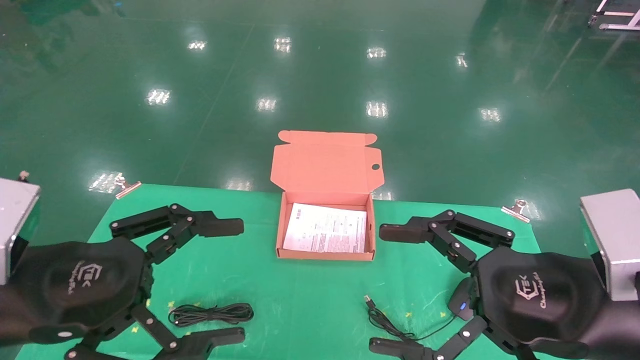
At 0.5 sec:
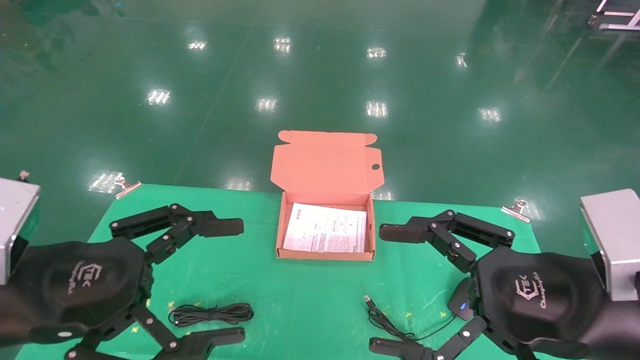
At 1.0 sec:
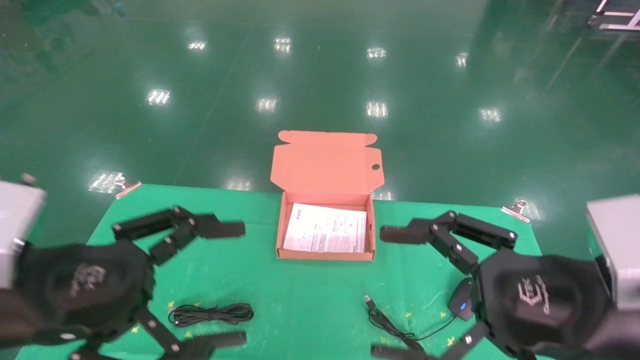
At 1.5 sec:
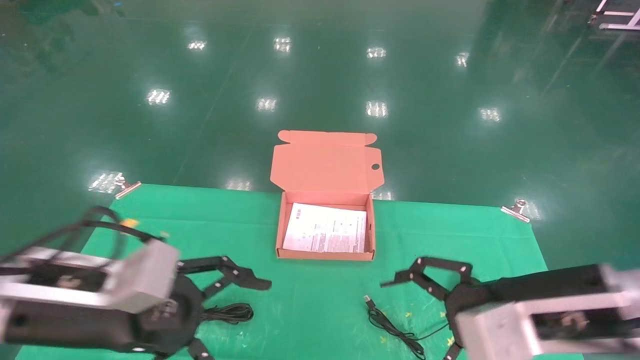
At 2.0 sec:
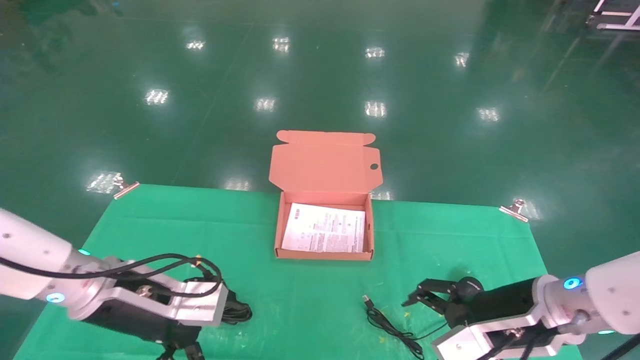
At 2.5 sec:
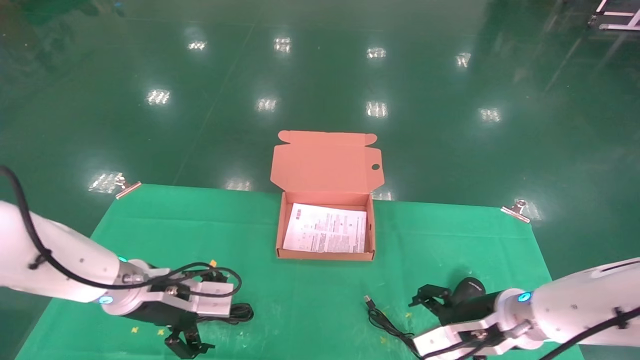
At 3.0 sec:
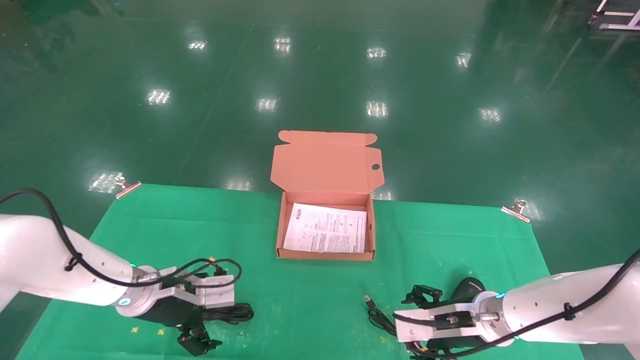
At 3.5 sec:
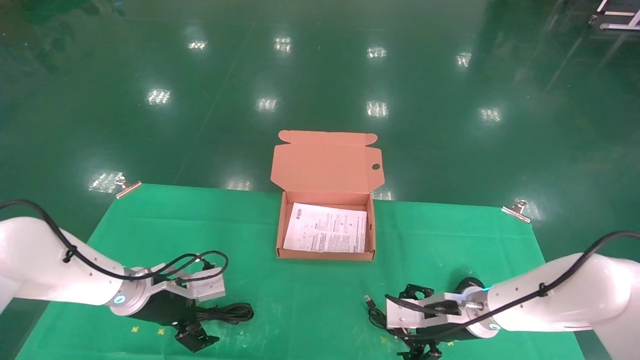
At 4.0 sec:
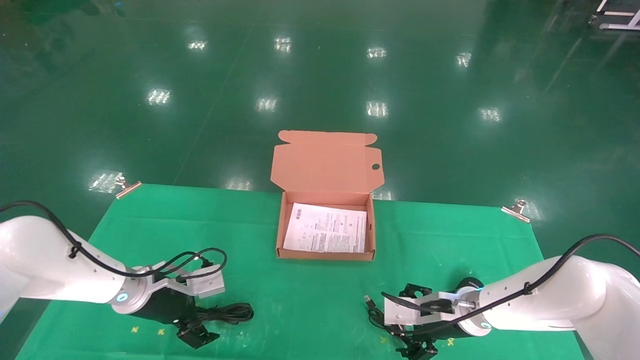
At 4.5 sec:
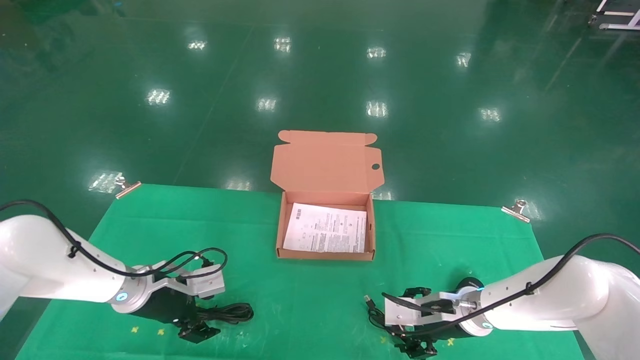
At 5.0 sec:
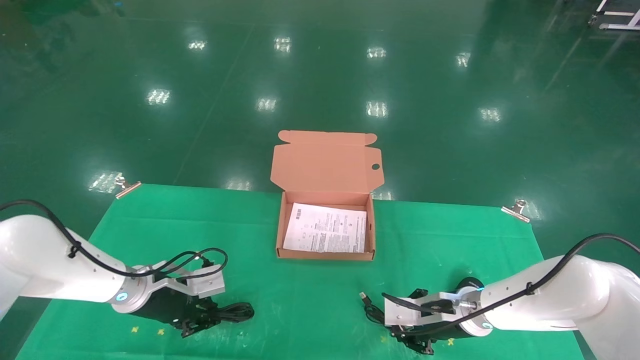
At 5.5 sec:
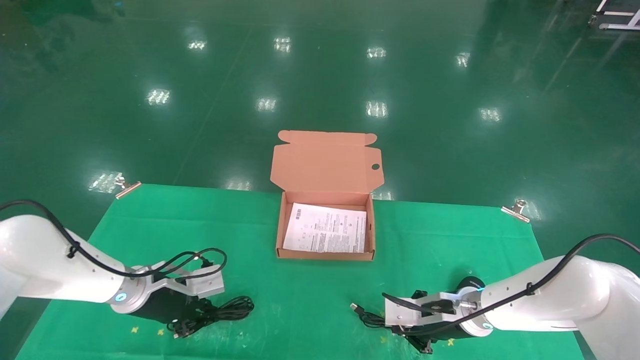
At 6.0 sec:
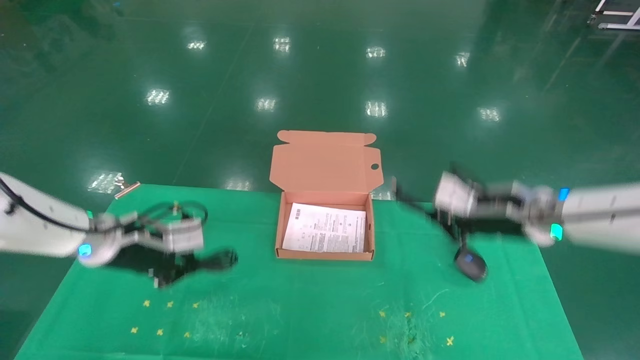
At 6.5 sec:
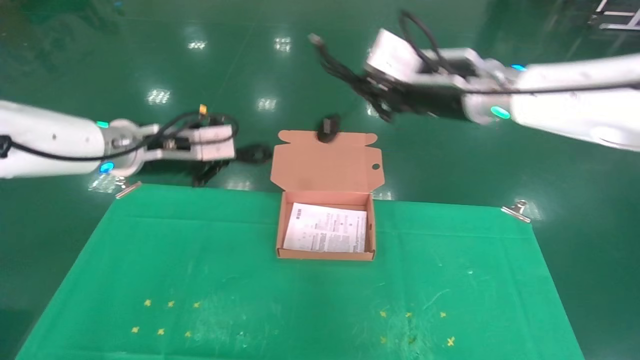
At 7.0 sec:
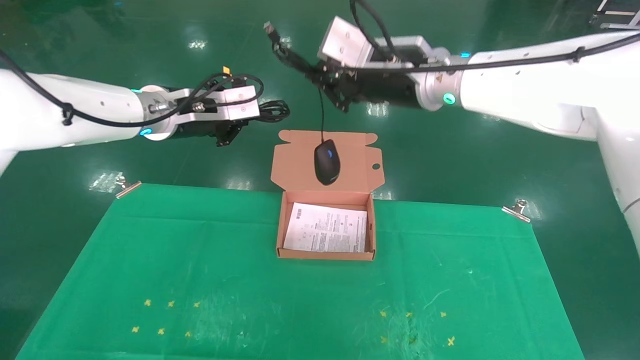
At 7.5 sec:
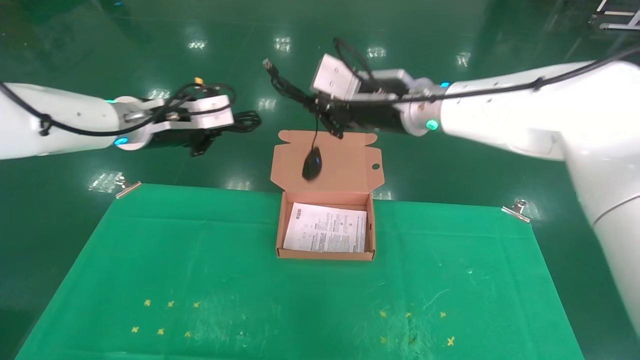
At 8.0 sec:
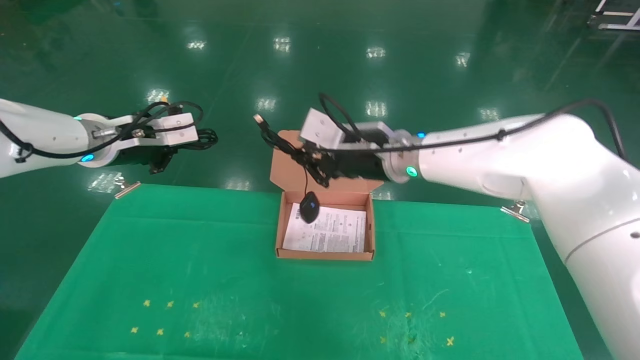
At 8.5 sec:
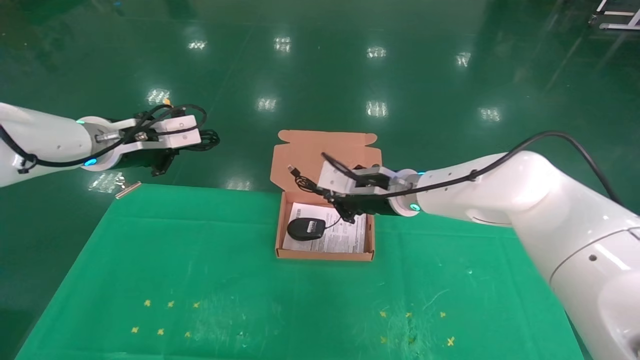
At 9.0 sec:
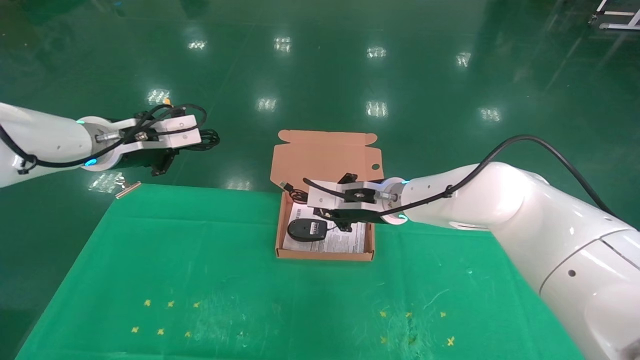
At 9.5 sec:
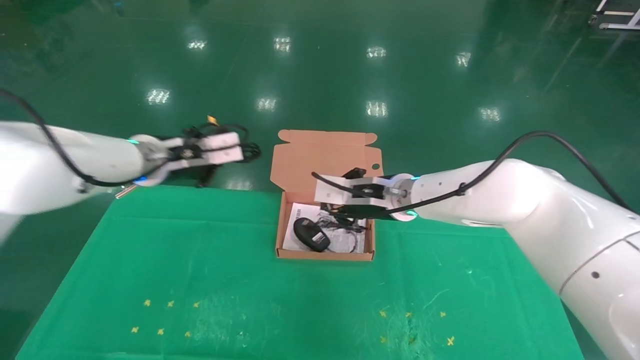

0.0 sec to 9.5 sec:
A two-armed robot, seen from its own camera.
Task of the whole recording: grasp data cable left put into box grasp mouse right put into box.
Step, 1.0 sec to 5.5 sec: Grab and pick up both the mouse and power cord from the accessory packaging area at the same time.
0.0 sec to 2.0 sec: Both grippers travel together forward and downward, about 15 cm.
2.0 sec to 4.0 sec: The grippers both shift forward and downward by approximately 15 cm.
4.0 sec to 5.5 sec: The left gripper closes; the right gripper closes its fingers.
5.5 sec to 7.5 sec: The right gripper moves upward and to the left, about 30 cm. The left gripper heads upward, covering some 25 cm.
7.5 sec to 9.5 sec: The right gripper travels downward by approximately 10 cm; the left gripper is displaced downward by approximately 5 cm.

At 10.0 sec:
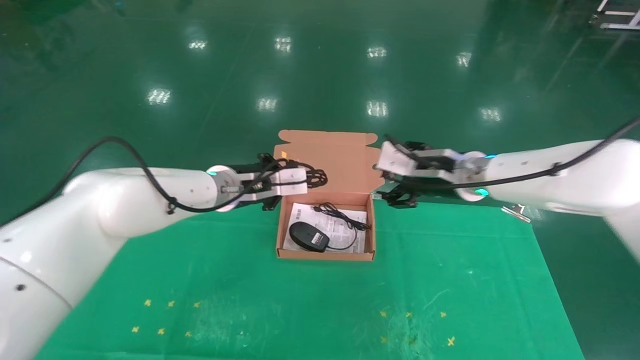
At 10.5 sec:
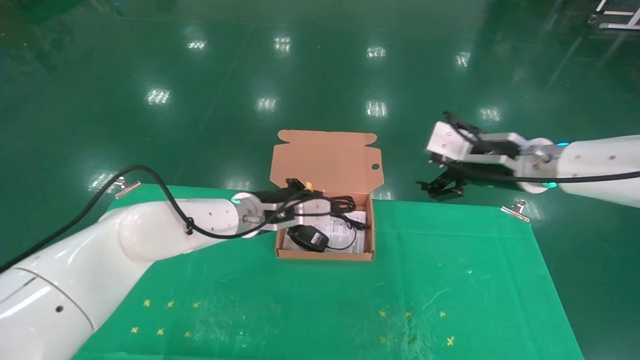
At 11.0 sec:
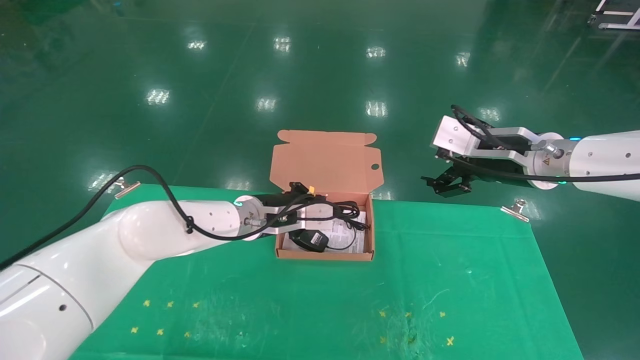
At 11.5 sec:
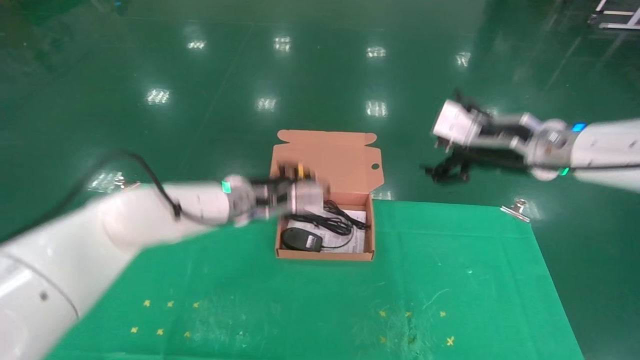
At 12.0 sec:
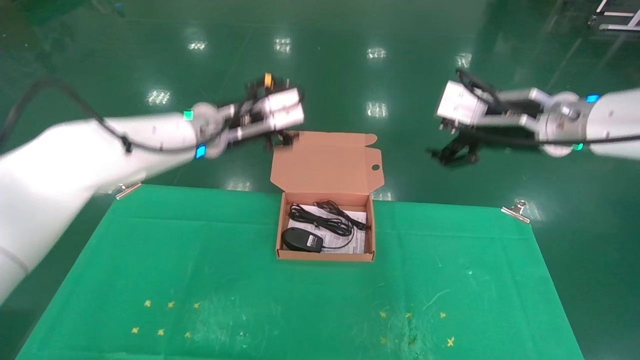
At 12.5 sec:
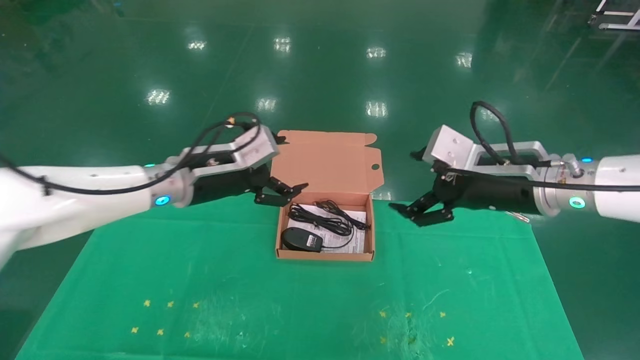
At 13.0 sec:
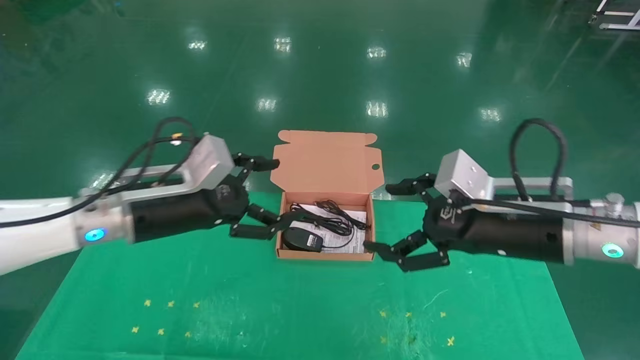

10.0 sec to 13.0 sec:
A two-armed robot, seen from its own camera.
Task of the whole recording: grasp data cable left put into box grasp mouse right put into box.
Step, 10.0 sec to 12.0 sec: Place the mouse and power cord into the box.
10.0 sec to 11.5 sec: The right gripper shifts about 5 cm upward.
11.5 sec to 13.0 sec: The right gripper travels backward and downward by approximately 10 cm; the left gripper heads backward and to the left, covering some 15 cm, and opens up.

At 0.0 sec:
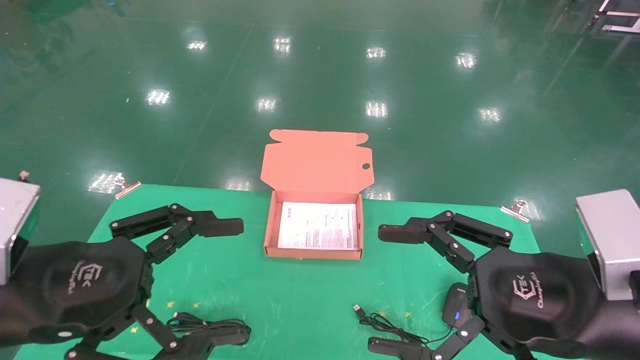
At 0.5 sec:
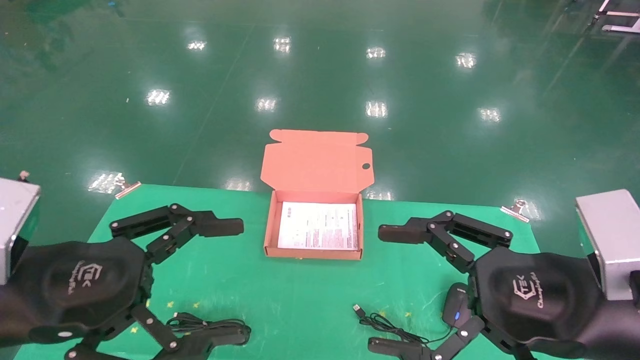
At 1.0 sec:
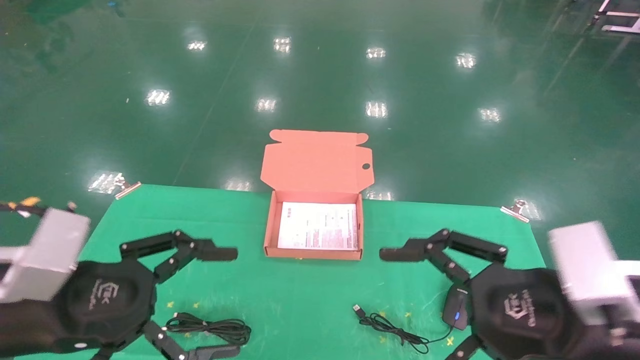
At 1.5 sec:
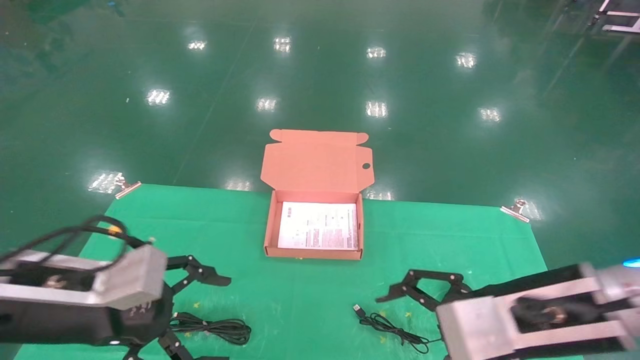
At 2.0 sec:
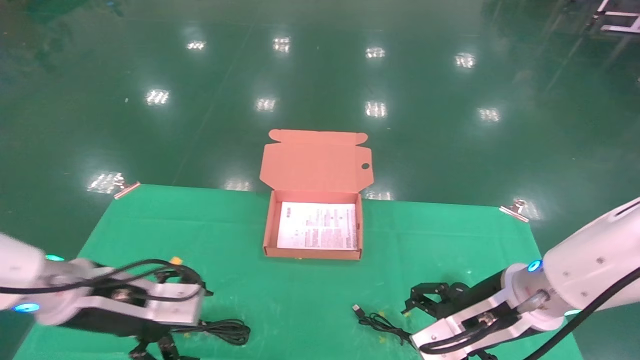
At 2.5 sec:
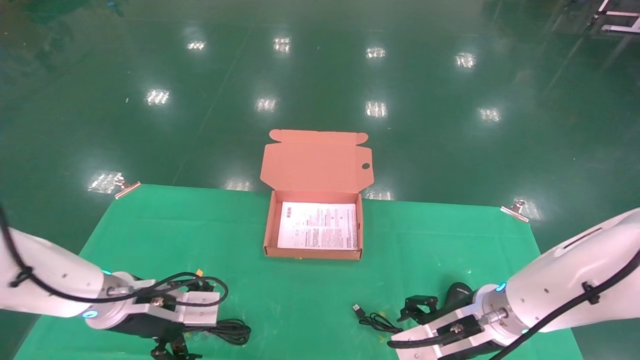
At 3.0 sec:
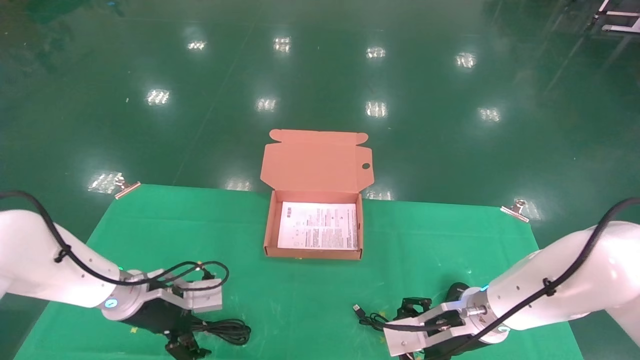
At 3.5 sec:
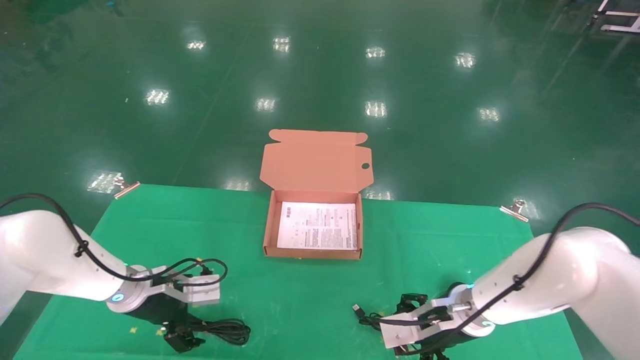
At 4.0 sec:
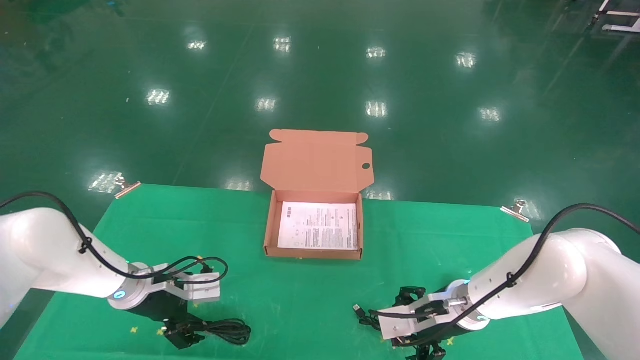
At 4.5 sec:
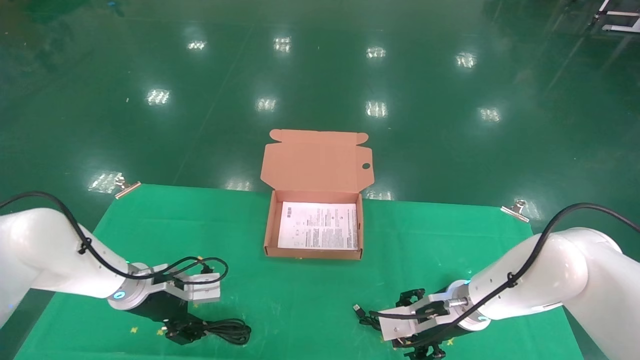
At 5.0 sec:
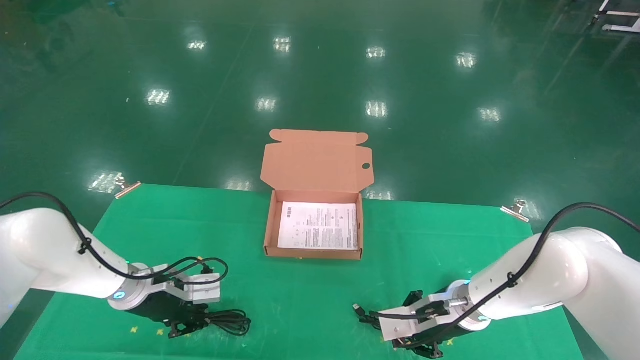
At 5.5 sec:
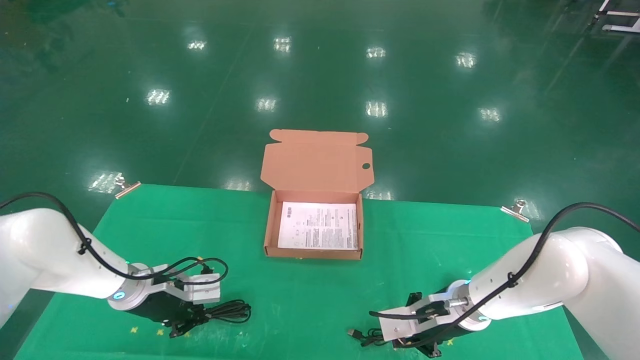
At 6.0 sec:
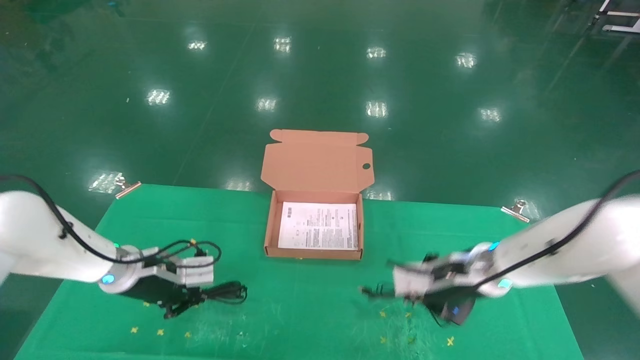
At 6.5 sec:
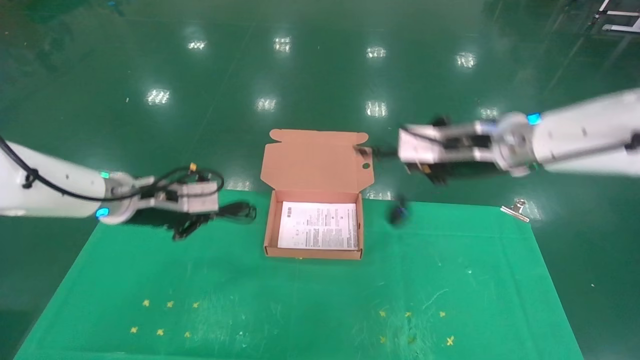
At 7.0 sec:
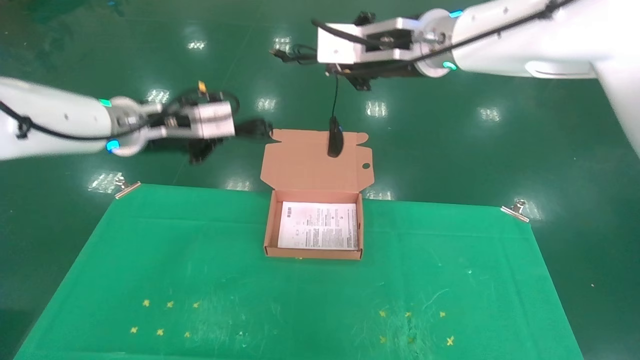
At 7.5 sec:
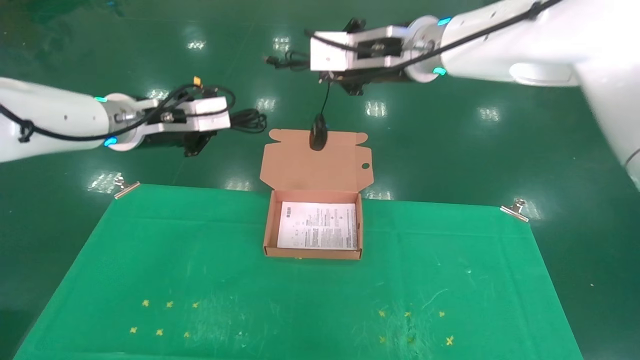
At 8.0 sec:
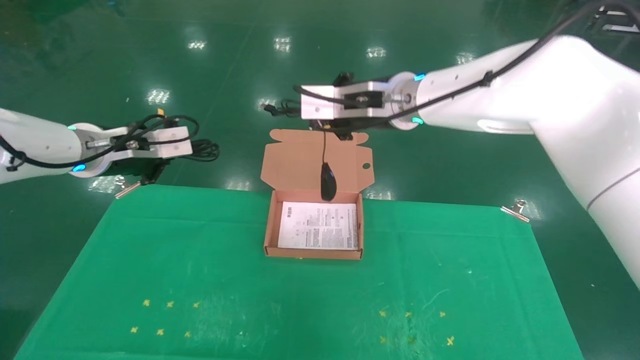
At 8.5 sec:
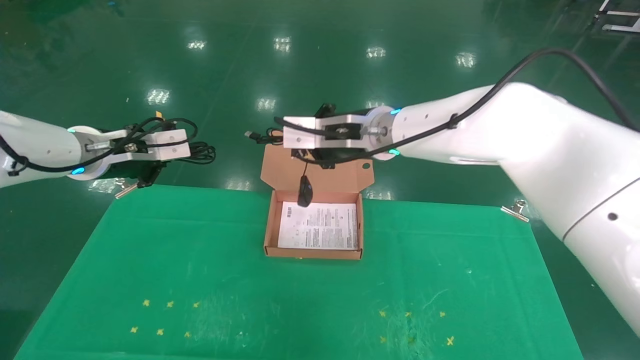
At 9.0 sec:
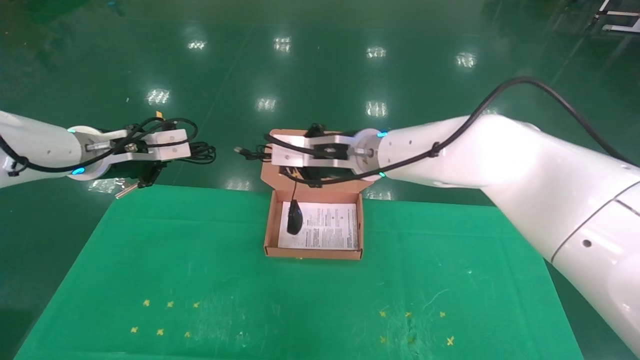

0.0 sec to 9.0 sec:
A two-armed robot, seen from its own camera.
Task of the whole recording: grasp data cable left put into box grasp mouse right put into box.
Step, 1.0 sec to 6.0 sec: Grab and pick up both the mouse and power cord from the accessory packaging area at the same time.
0.0 sec to 2.0 sec: Both grippers move forward and downward, approximately 15 cm.
2.0 sec to 4.5 sec: Both grippers move forward and downward, some 15 cm.
4.5 sec to 7.0 sec: Both grippers move upward, some 30 cm. The right gripper closes. The left gripper closes up.
7.0 sec to 9.0 sec: The right gripper is displaced downward by roughly 15 cm; the left gripper goes some 5 cm to the left.
